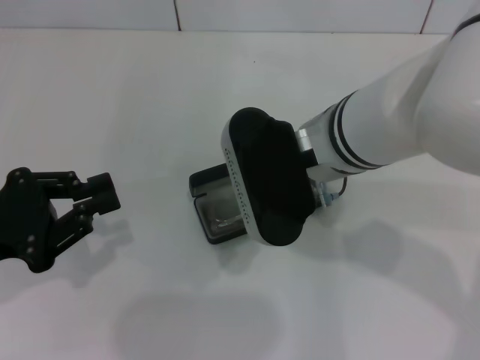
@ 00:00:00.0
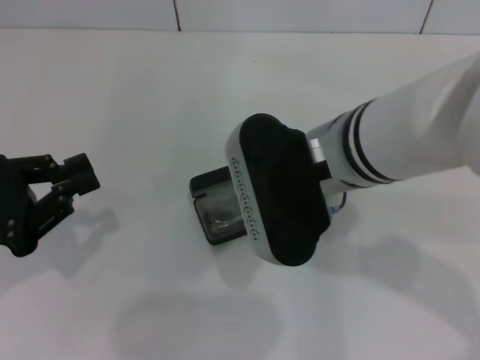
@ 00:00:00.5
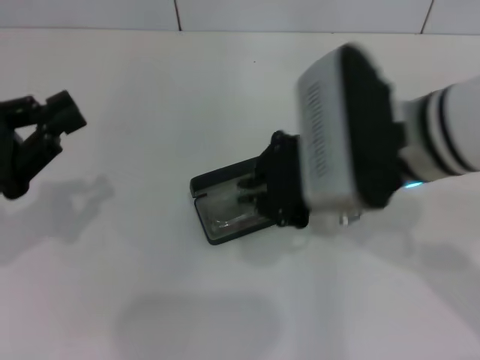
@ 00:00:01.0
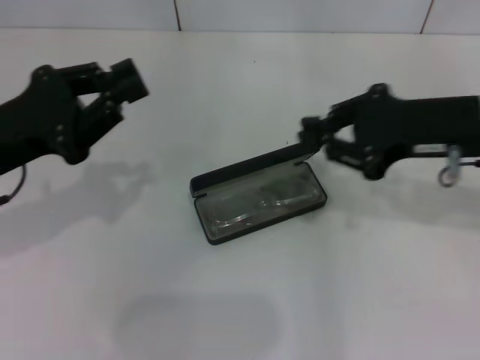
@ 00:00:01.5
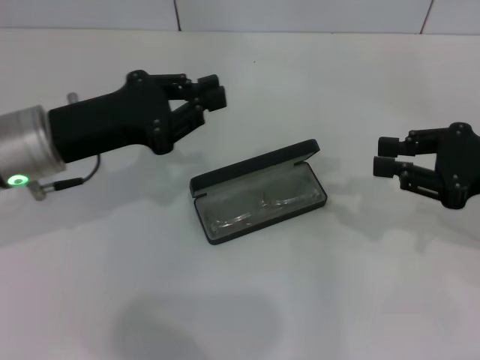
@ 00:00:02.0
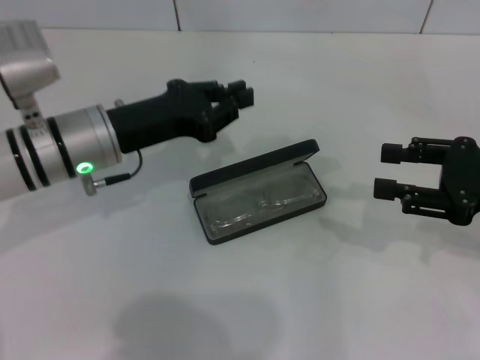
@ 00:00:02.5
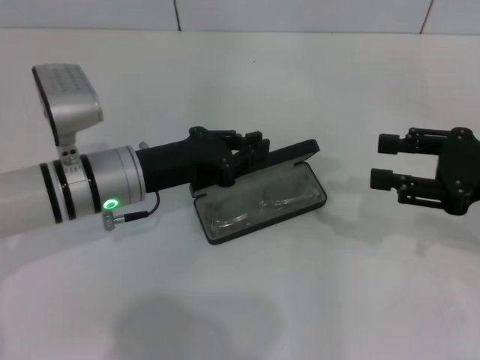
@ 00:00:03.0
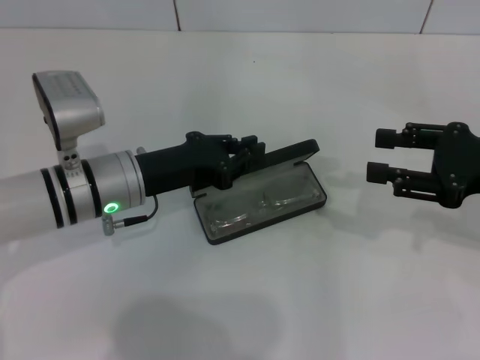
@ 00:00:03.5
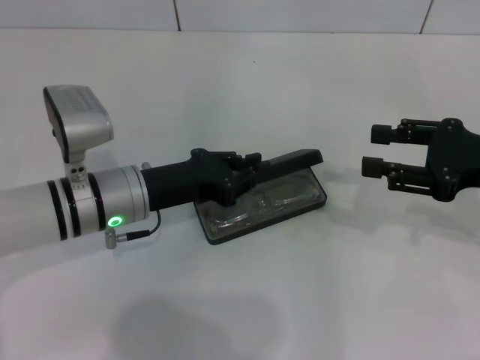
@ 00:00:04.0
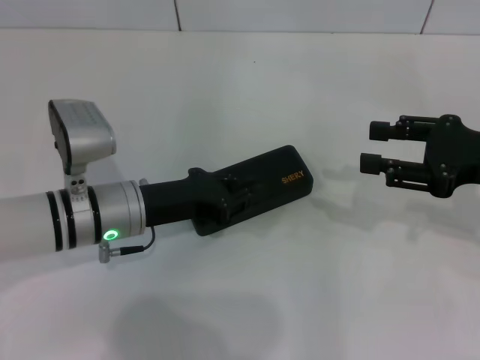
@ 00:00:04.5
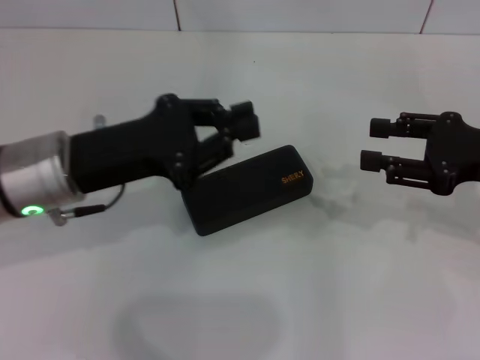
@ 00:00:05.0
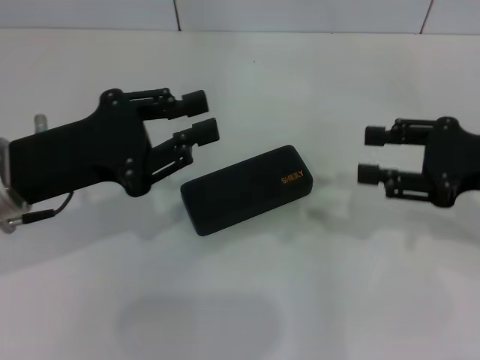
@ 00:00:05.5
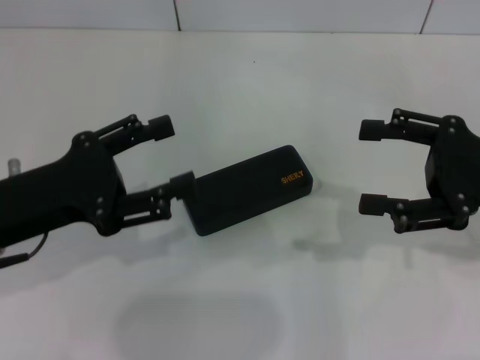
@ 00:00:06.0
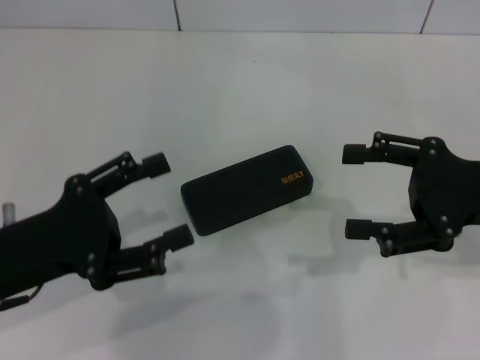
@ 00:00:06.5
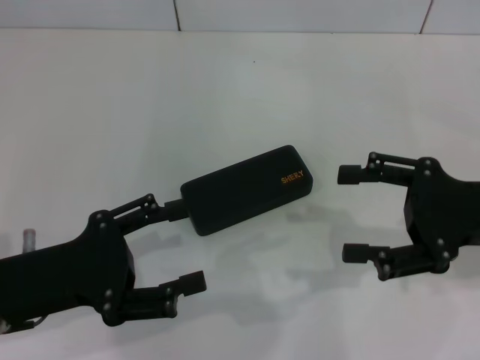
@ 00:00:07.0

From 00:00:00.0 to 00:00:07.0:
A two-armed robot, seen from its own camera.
Step, from 00:00:01.0 to 00:00:04.5: Close the glasses case with your left hand.
From 00:00:00.0 to 00:00:02.0: The right gripper heads to the right, covering some 25 cm. Meanwhile the left gripper heads forward and to the right, covering some 15 cm.
From 00:00:02.0 to 00:00:03.5: The right gripper opens its fingers; the left gripper shifts about 10 cm downward and to the right.
From 00:00:03.5 to 00:00:05.0: The left gripper goes some 5 cm upward.
From 00:00:05.0 to 00:00:07.0: The left gripper heads backward and to the left, covering approximately 10 cm, and opens.
